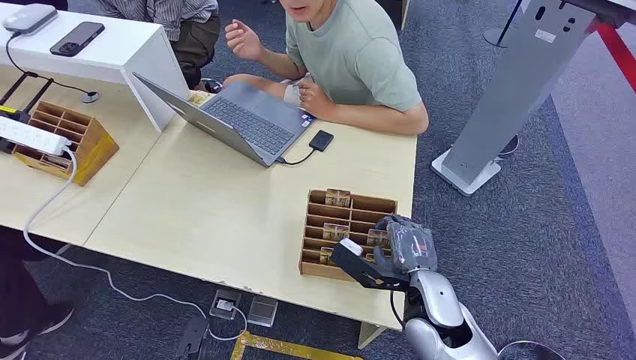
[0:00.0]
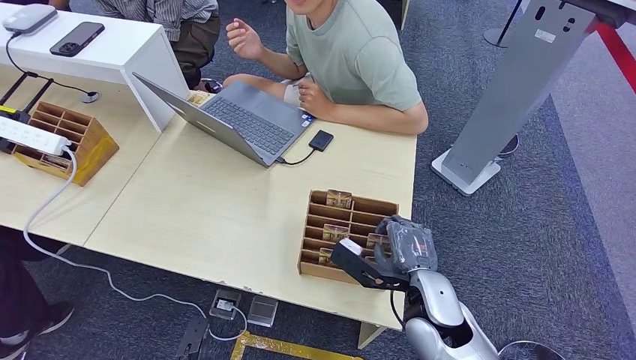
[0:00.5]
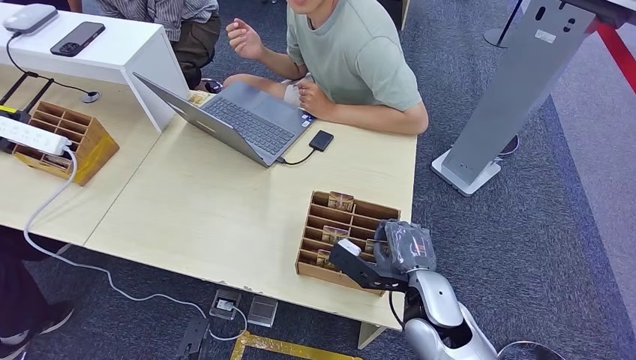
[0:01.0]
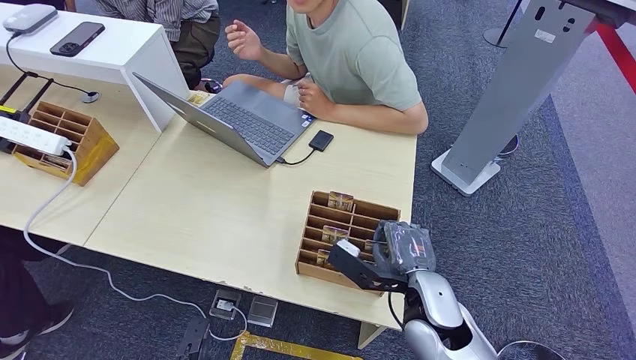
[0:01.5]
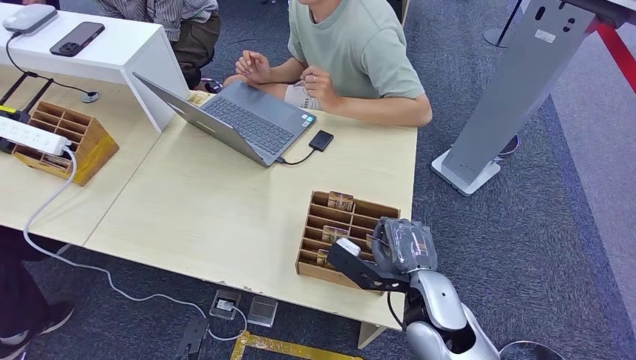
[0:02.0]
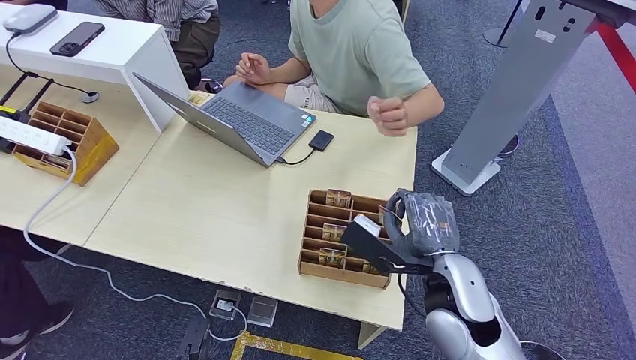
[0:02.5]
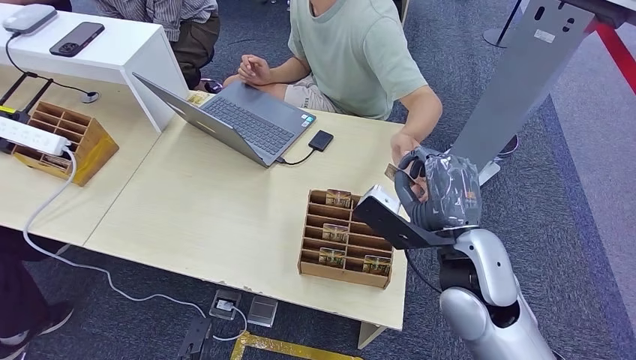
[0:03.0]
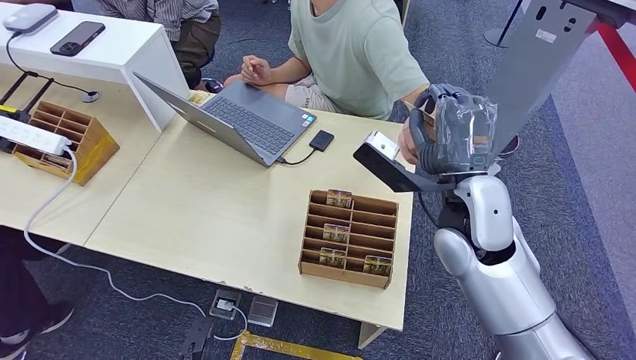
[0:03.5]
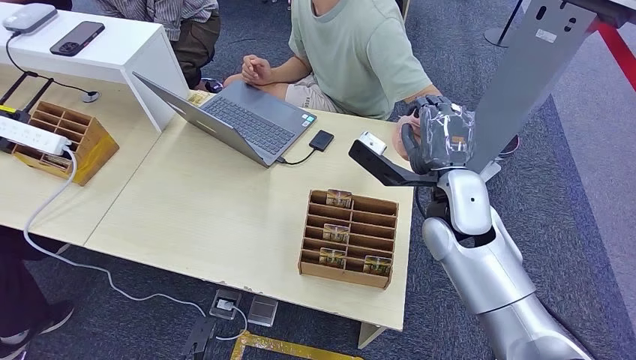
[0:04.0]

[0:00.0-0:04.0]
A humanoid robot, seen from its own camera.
Step, 0:00.0 to 0:02.0: Pick up the key card from the card box.
Step, 0:03.5 to 0:04.0: Hand the key card to the target.
0:02.0 to 0:04.0: The right hand moves forward and upward, some 15 cm.
